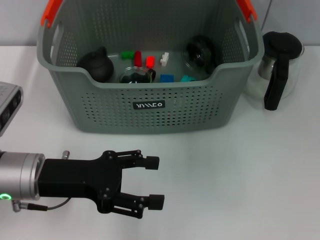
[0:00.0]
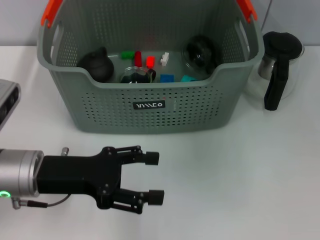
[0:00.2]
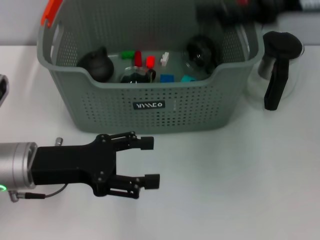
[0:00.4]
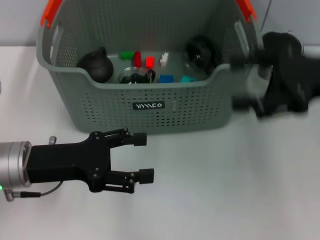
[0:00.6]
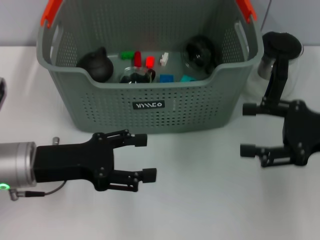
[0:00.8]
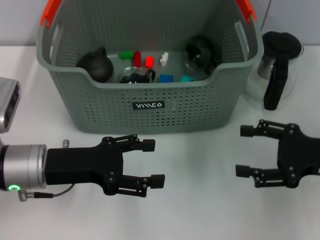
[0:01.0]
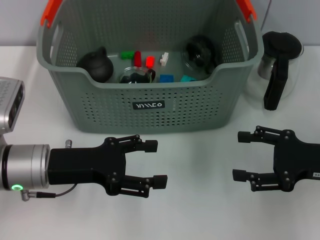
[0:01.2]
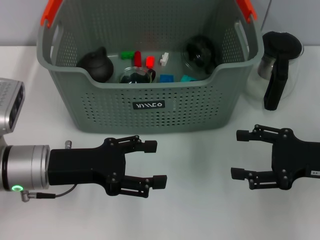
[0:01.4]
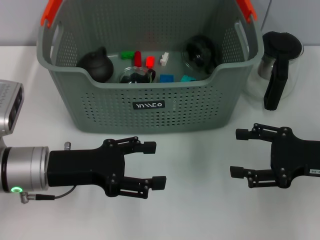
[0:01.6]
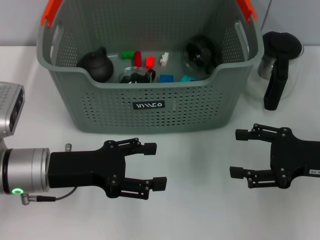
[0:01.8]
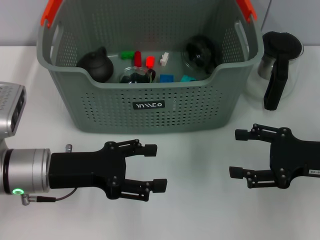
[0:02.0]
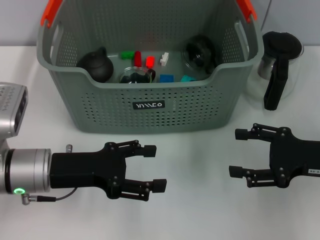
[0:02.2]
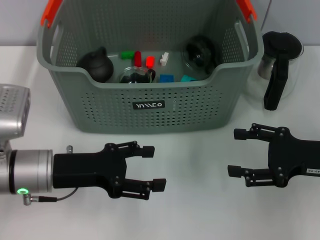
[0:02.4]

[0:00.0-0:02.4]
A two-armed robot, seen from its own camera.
Task of the whole recording: pick up the teacup on the table and place it into the storage bin, pick up the block on the table and place it into the storage bin.
0:00.0 to 0:01.2: The right gripper goes some 30 cm downward, backward and to the right, and opens up.
0:01.2 to 0:02.4: Both grippers stay about where they are.

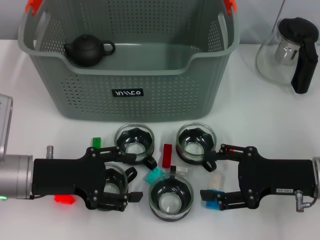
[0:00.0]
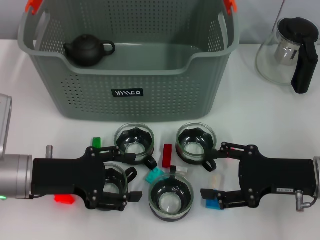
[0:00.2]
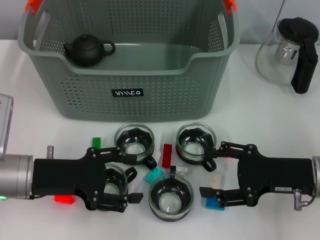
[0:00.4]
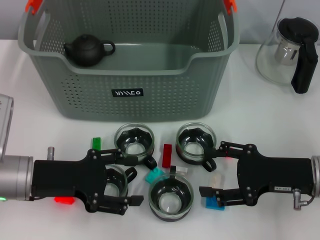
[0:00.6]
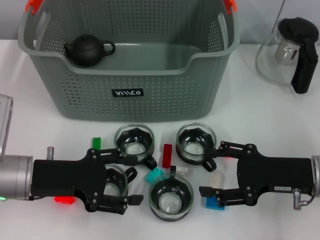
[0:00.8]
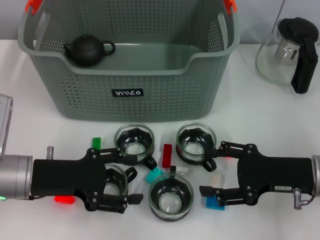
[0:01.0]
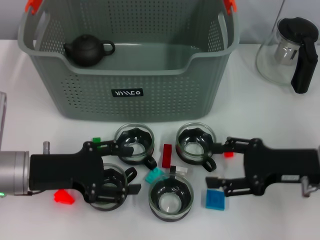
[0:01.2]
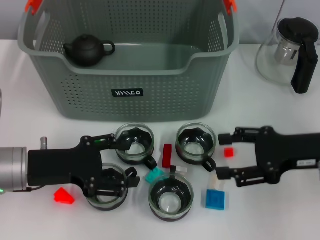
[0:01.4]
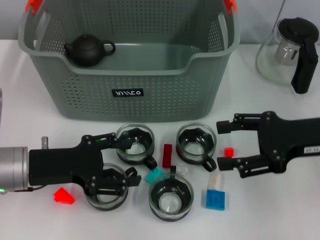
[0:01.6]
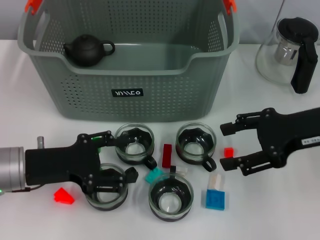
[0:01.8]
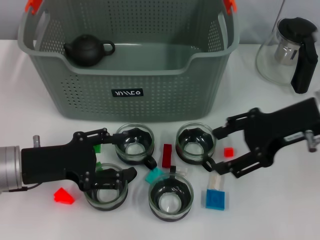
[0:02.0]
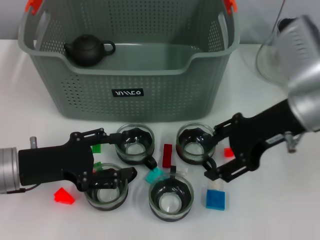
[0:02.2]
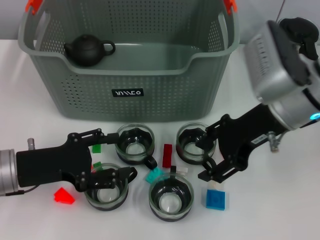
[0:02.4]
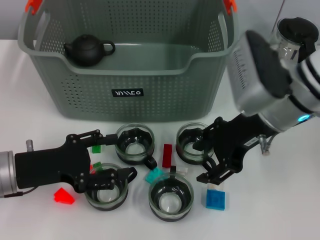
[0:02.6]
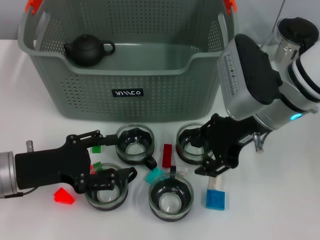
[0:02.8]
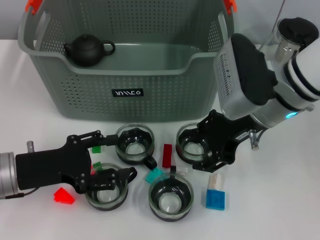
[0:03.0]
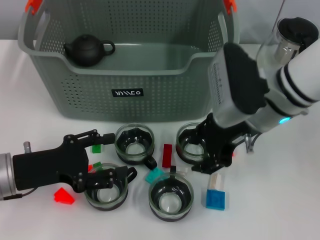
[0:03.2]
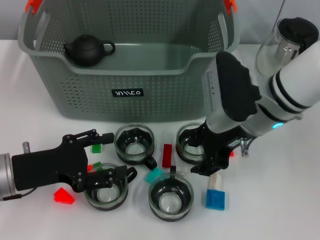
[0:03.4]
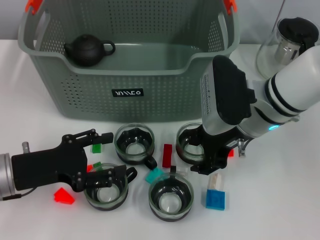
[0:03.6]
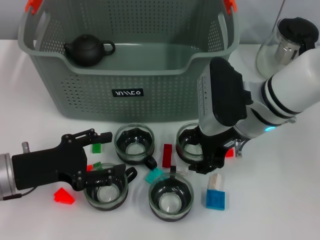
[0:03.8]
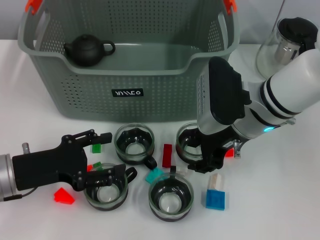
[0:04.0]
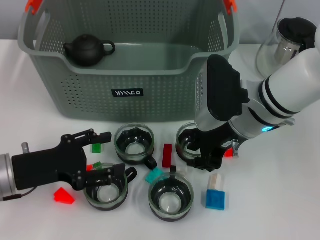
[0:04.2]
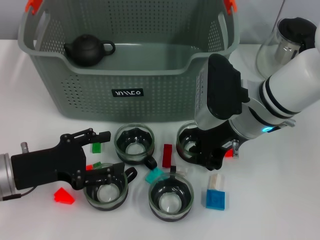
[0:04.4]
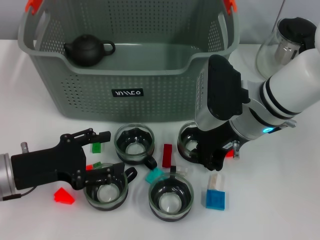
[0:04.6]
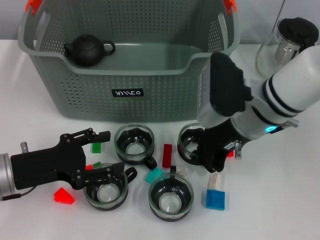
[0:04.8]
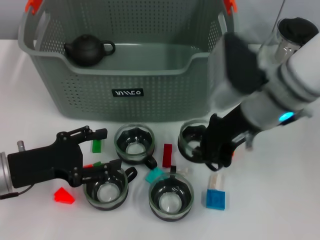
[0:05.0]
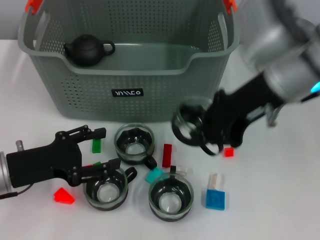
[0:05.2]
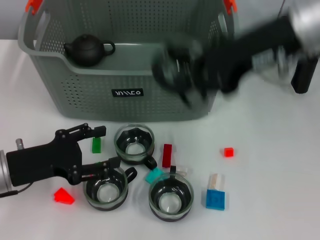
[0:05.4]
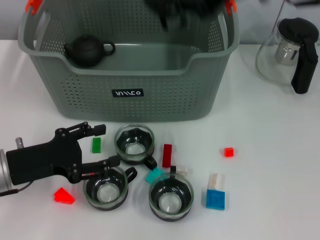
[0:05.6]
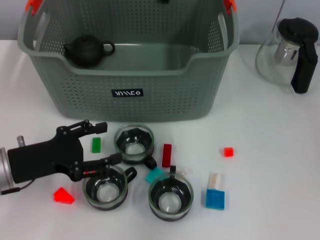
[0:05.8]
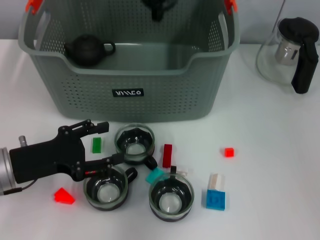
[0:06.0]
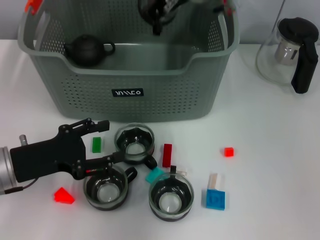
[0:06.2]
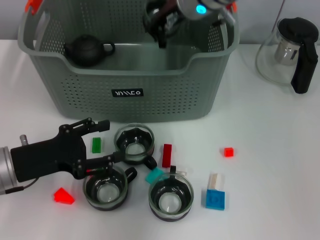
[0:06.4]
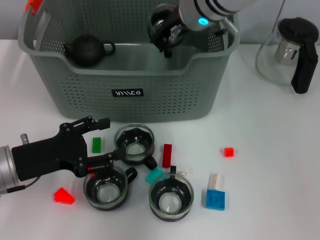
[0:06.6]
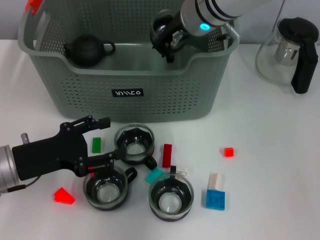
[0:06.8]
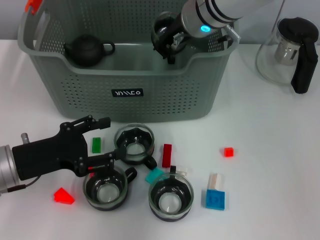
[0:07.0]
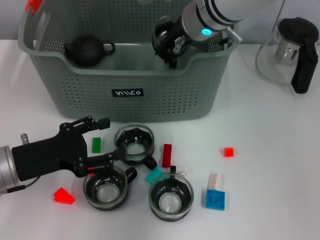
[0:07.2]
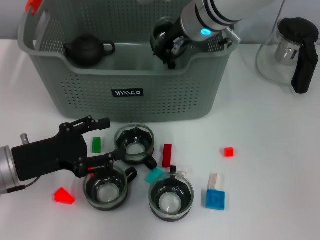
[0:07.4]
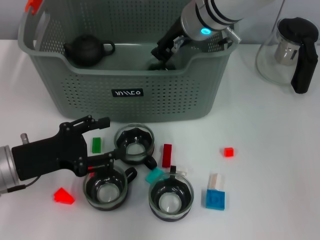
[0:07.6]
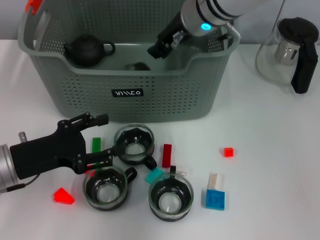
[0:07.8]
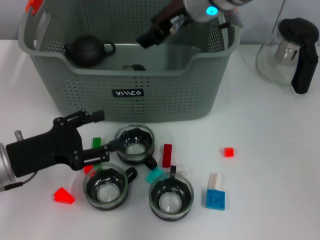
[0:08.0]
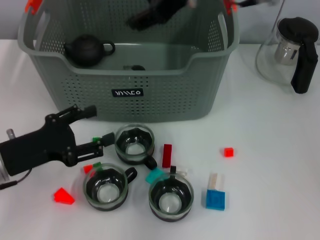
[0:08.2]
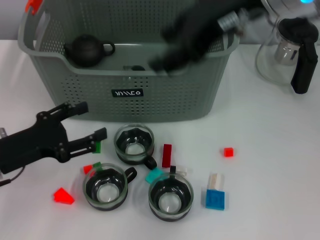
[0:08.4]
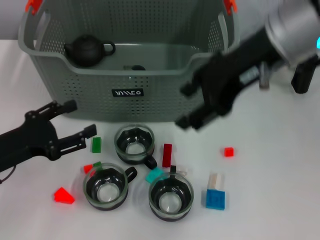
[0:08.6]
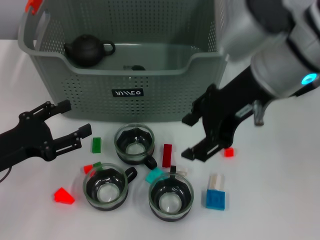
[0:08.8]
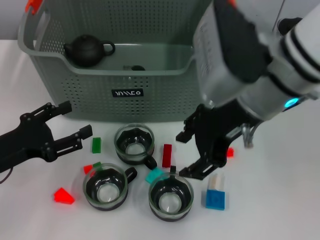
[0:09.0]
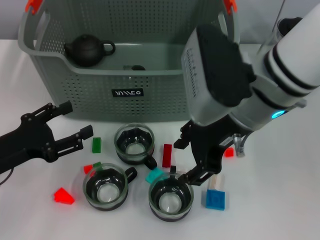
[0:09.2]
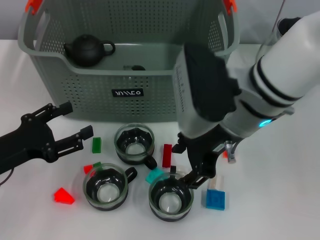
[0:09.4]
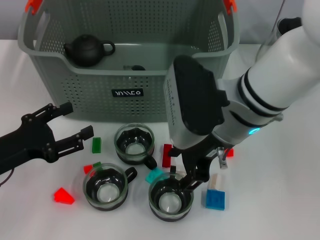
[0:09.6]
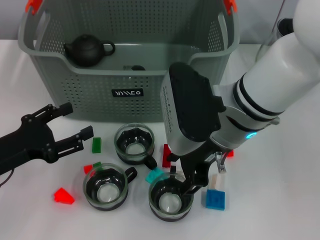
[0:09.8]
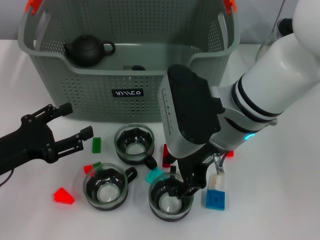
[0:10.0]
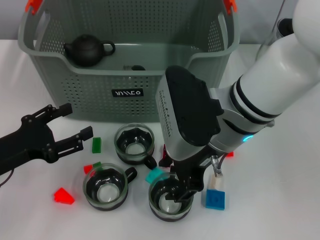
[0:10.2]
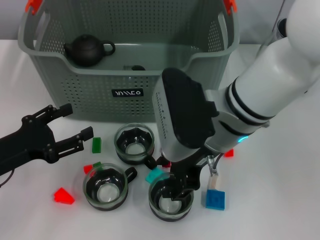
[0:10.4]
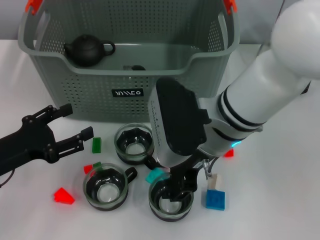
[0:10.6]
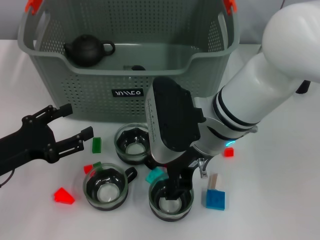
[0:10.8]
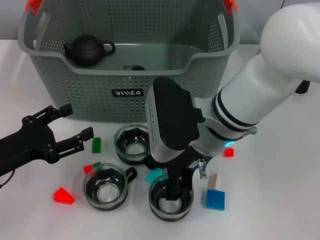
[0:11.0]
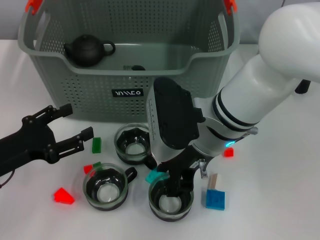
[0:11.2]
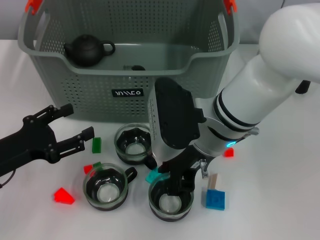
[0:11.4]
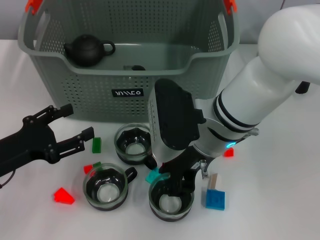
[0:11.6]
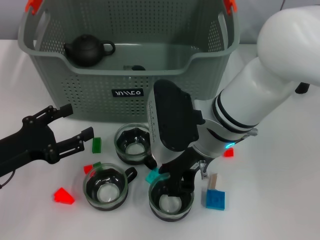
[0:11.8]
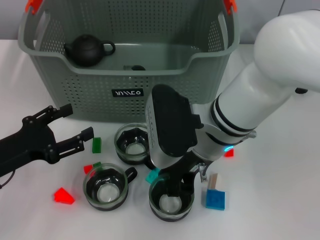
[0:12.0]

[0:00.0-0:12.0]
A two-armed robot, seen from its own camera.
Task of the whole recording: pick up the teacup on the table and place it into the storage bin, pick up the block on the table and place it into the storage bin.
Step, 0:00.0 to 0:04.4: Grasp the cup with right gripper.
Step, 0:04.8 to 0:07.6: Place the cup in the storage box with right gripper.
0:00.0 to 0:01.6: The right gripper heads upward, covering approximately 5 cm.
0:01.6 to 0:03.0: The right gripper shifts some 15 cm to the left and forward.
0:03.0 to 0:04.4: The right gripper closes up.
0:04.4 to 0:06.0: The right gripper shifts approximately 15 cm upward and forward, and closes its fingers.
0:06.0 to 0:07.6: The right gripper travels downward by some 5 cm.
0:07.6 to 0:09.0: The right gripper heads backward and to the right, covering some 15 cm, and opens.
0:09.0 to 0:10.4: The right gripper goes about 5 cm downward.
0:10.4 to 0:12.0: The grippers move only a little.

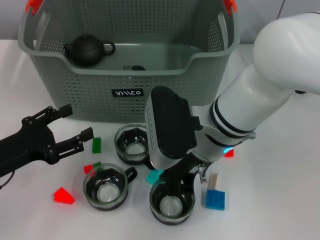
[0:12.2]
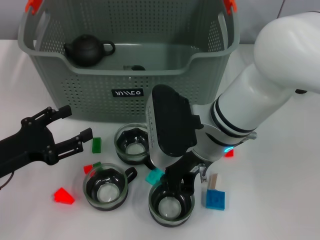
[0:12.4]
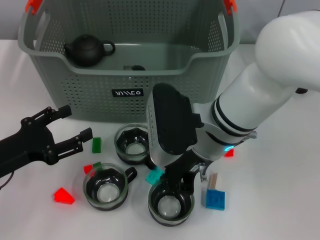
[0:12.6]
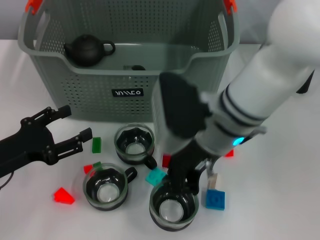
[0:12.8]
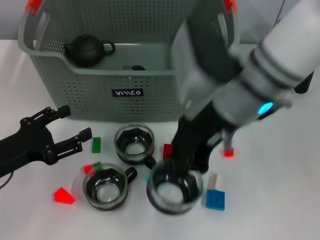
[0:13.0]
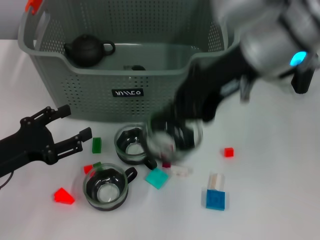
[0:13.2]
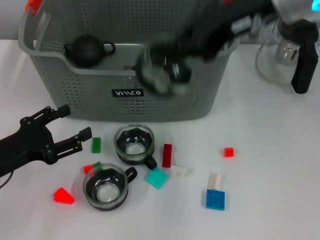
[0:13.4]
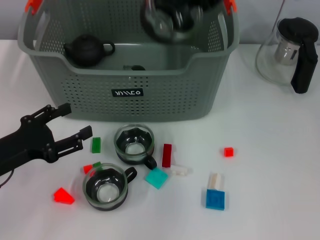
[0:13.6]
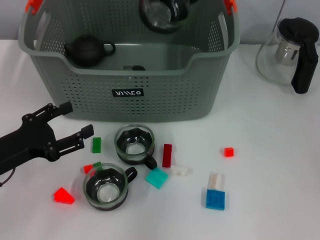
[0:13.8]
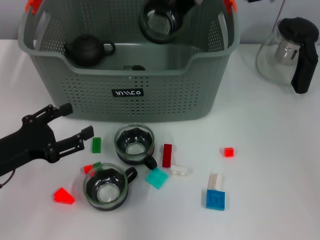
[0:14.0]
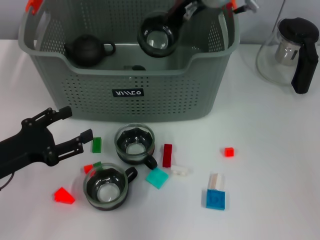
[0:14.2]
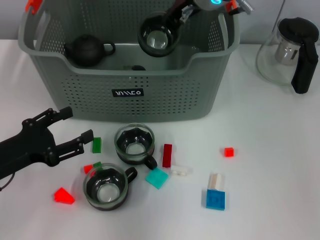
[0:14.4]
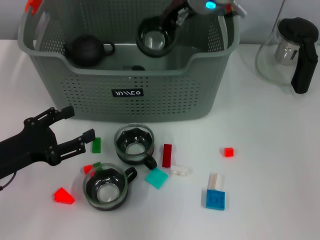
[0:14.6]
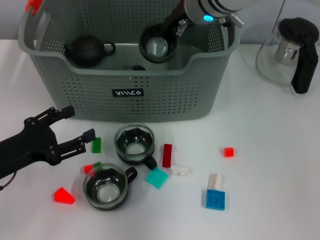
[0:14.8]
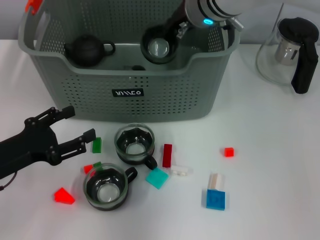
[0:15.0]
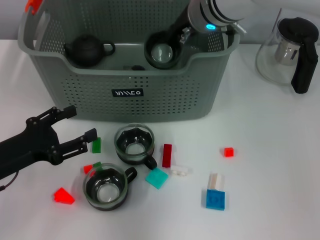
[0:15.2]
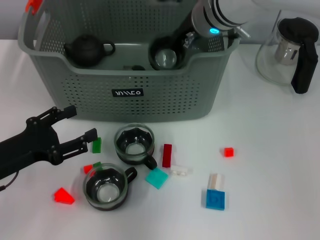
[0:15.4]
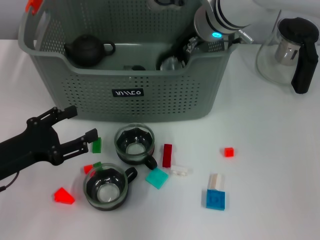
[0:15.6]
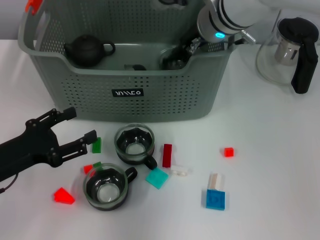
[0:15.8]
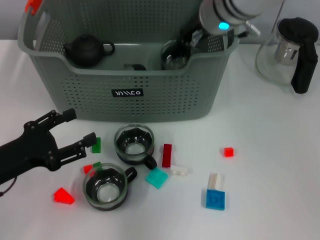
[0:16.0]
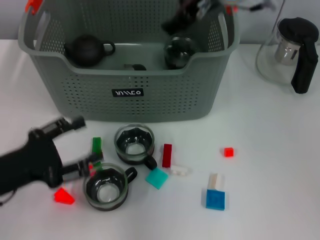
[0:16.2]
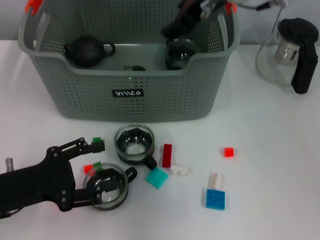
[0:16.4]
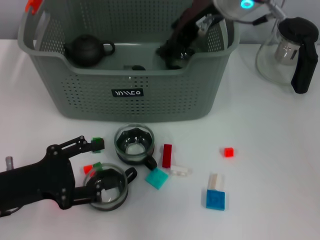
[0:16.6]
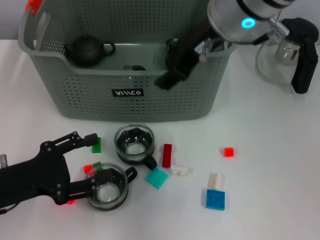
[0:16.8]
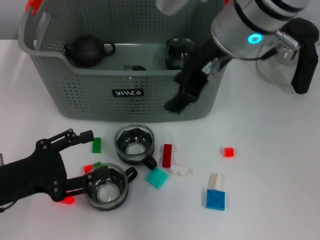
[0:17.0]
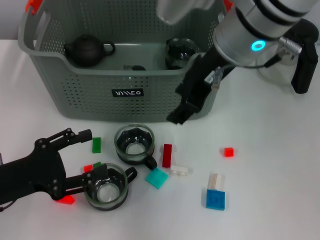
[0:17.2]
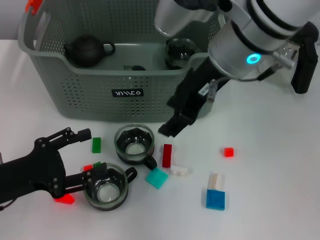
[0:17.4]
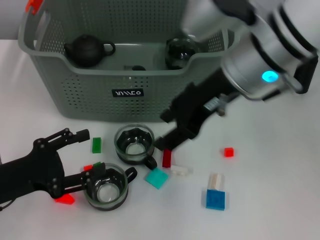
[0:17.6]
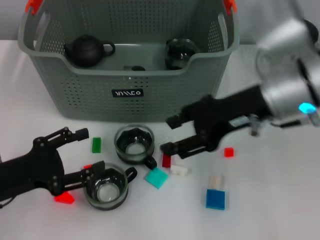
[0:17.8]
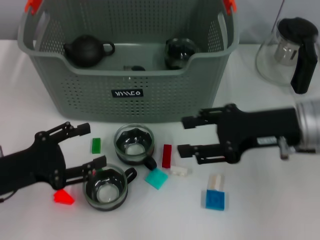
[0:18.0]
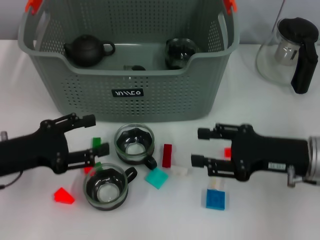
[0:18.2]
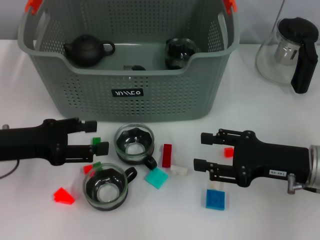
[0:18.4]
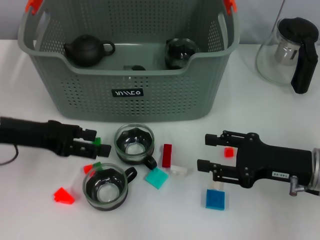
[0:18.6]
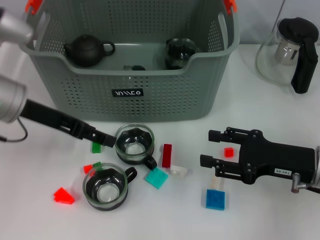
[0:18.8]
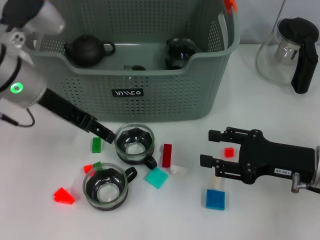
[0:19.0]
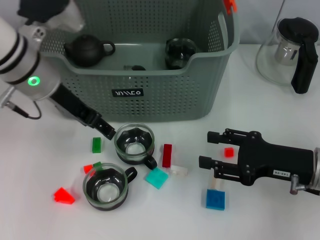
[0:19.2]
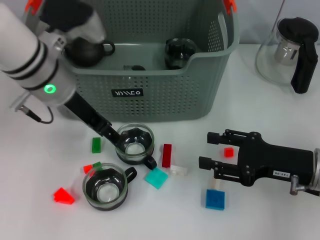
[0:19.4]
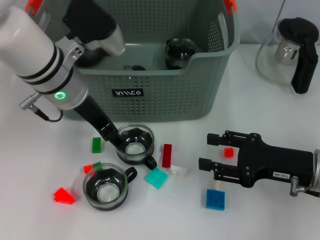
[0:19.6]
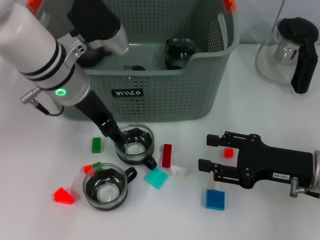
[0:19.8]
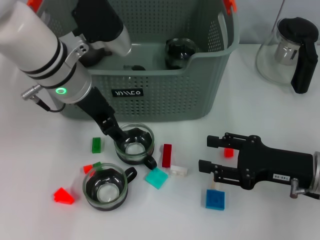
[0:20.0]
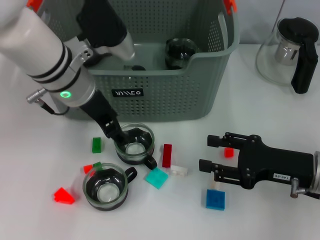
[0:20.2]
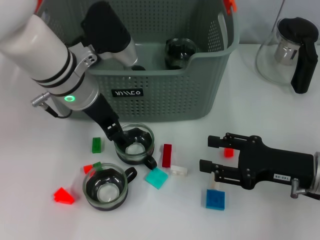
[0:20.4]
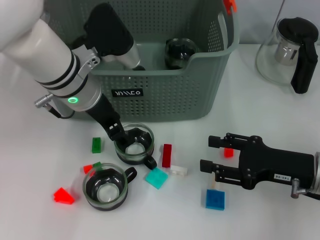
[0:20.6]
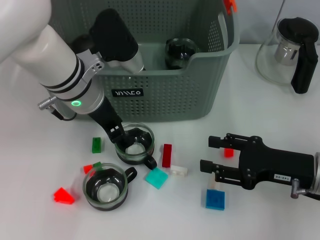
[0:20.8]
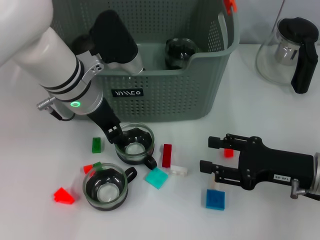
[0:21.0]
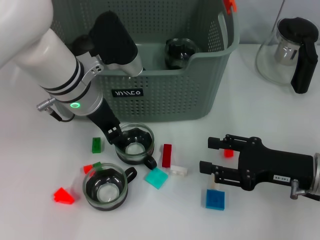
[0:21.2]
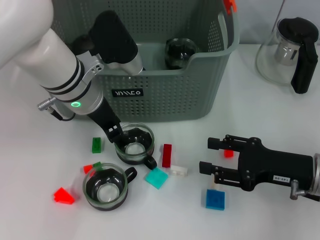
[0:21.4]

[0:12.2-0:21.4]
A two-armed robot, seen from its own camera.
Task of the whole recording: pick up the teacup on the table and place it into the storage bin, pick up the block on the table and place it into the storage bin.
Step, 0:12.6 to 0:15.6: Place the cup in the storage box with right gripper.
0:12.2 to 0:13.8: The right gripper heads upward and forward, covering approximately 20 cm.
0:13.8 to 0:15.2: The right gripper is displaced downward and to the left by roughly 10 cm.
0:15.2 to 0:16.8: The right gripper travels backward and upward by about 10 cm, and opens its fingers.
0:16.8 to 0:18.4: The left gripper moves forward, some 5 cm. The right gripper is displaced downward, to the right and backward by some 30 cm.
0:18.4 to 0:19.8: The left gripper heads to the right, forward and upward, covering about 20 cm.
0:19.8 to 0:21.4: The grippers stay close to where they were, moving slightly.
